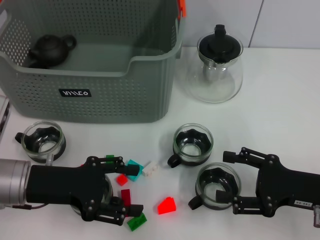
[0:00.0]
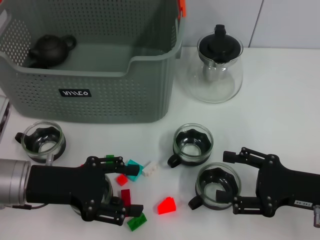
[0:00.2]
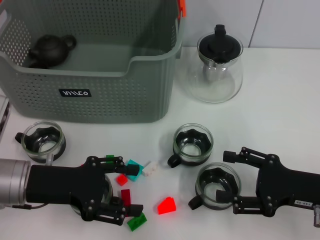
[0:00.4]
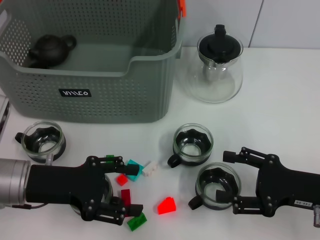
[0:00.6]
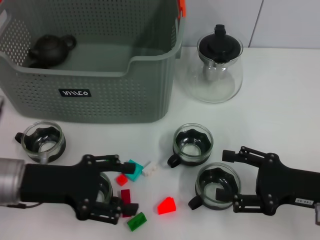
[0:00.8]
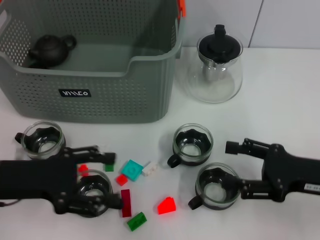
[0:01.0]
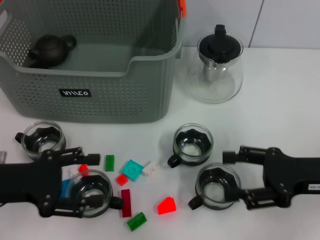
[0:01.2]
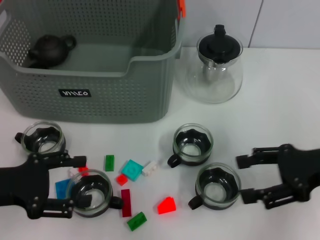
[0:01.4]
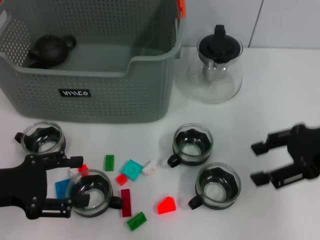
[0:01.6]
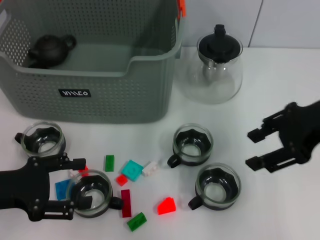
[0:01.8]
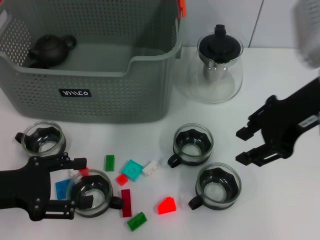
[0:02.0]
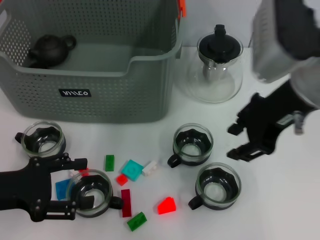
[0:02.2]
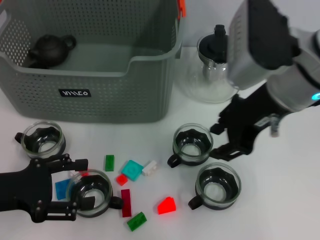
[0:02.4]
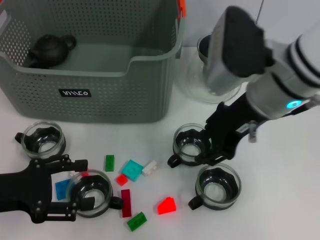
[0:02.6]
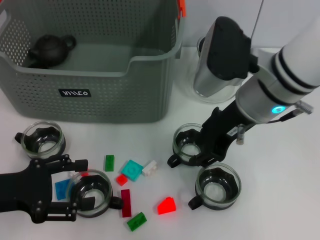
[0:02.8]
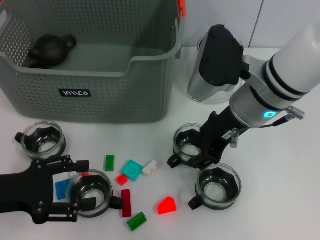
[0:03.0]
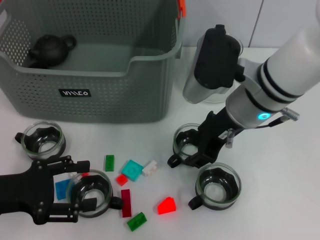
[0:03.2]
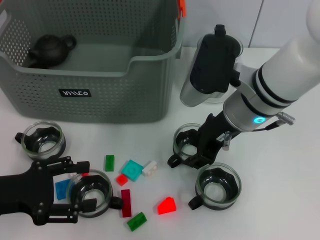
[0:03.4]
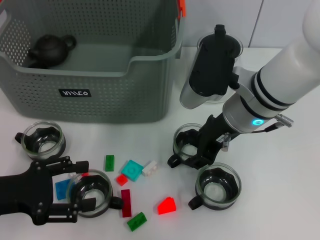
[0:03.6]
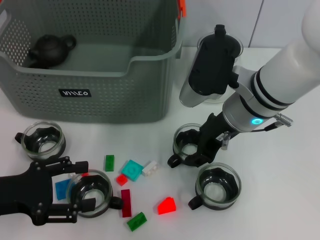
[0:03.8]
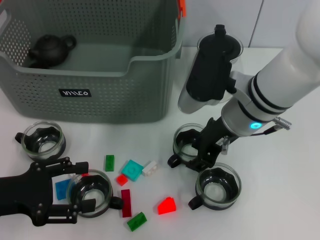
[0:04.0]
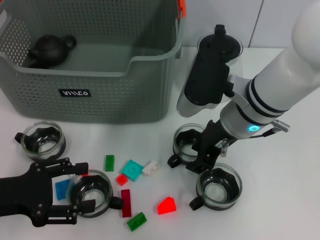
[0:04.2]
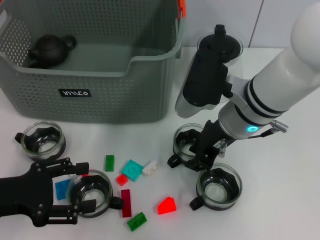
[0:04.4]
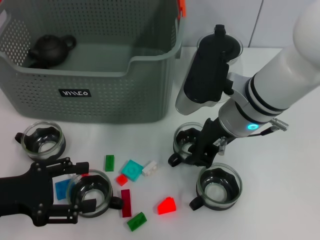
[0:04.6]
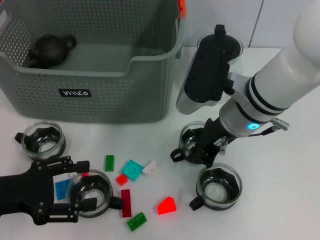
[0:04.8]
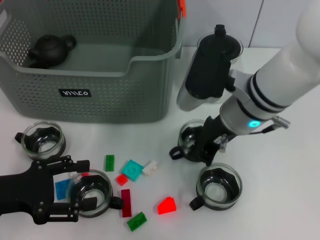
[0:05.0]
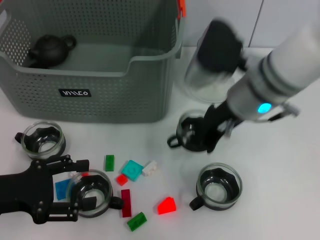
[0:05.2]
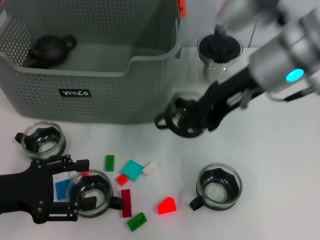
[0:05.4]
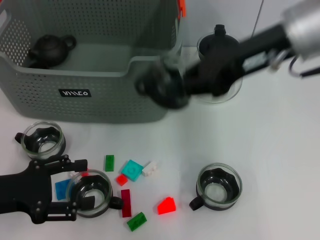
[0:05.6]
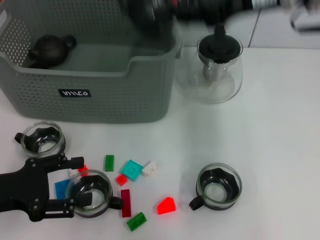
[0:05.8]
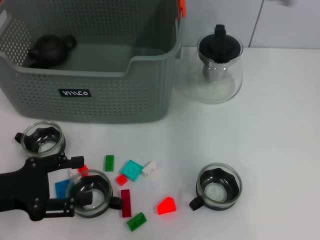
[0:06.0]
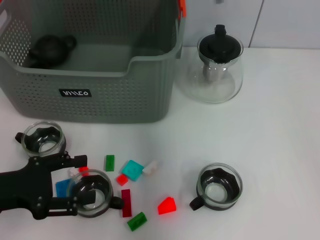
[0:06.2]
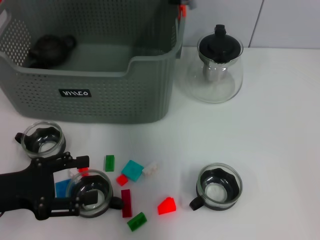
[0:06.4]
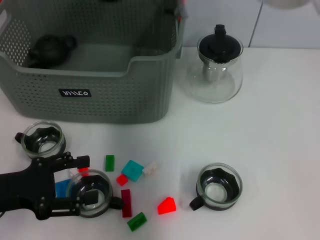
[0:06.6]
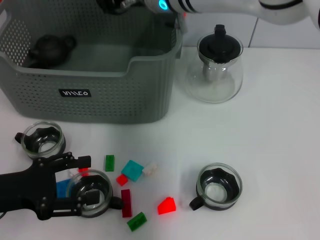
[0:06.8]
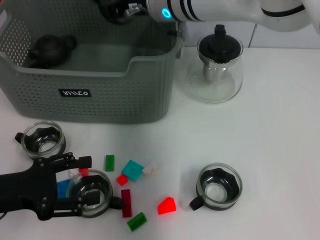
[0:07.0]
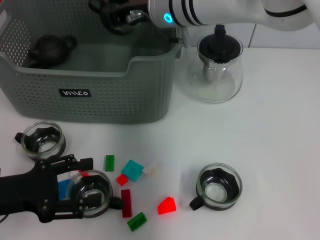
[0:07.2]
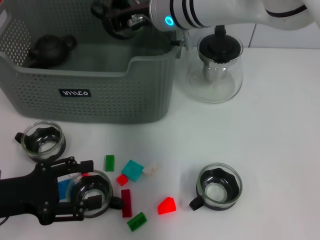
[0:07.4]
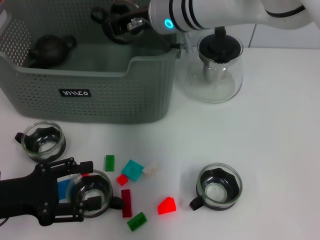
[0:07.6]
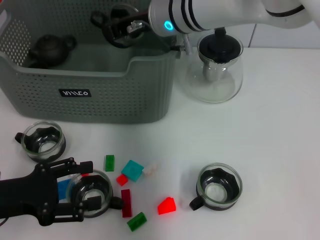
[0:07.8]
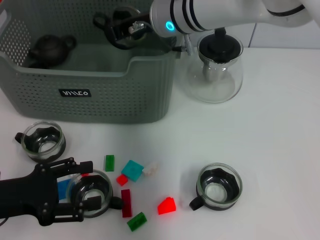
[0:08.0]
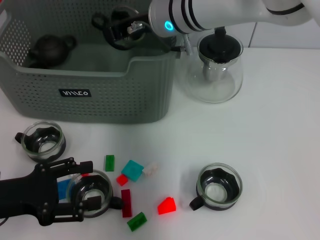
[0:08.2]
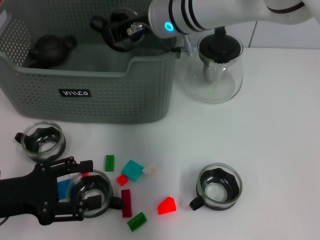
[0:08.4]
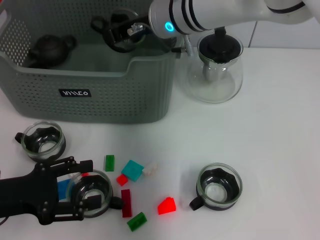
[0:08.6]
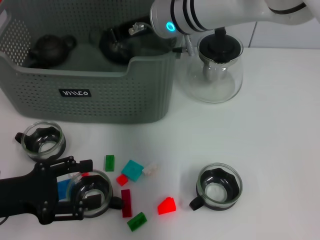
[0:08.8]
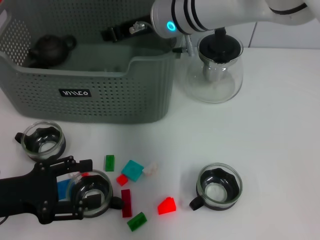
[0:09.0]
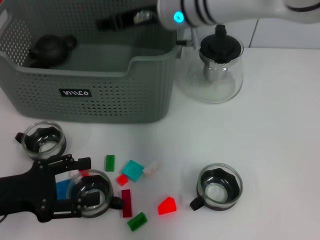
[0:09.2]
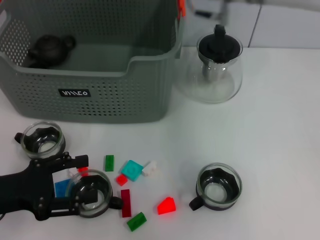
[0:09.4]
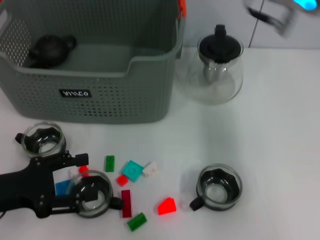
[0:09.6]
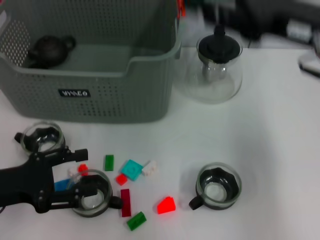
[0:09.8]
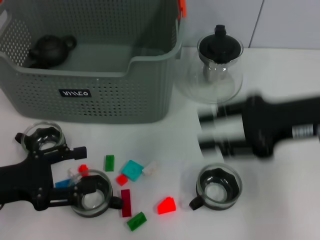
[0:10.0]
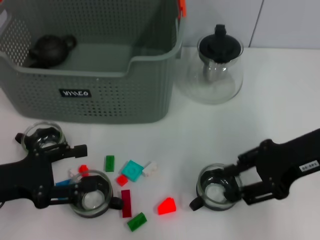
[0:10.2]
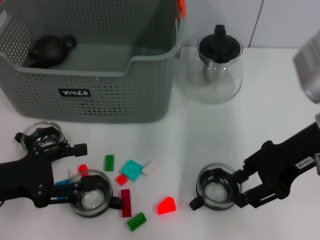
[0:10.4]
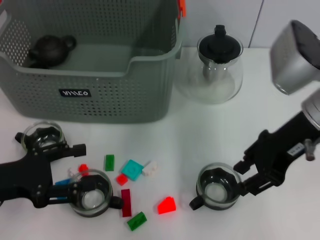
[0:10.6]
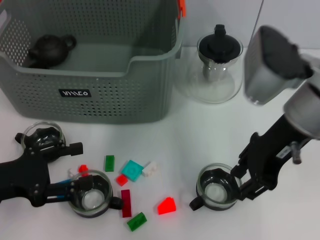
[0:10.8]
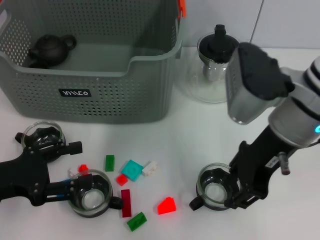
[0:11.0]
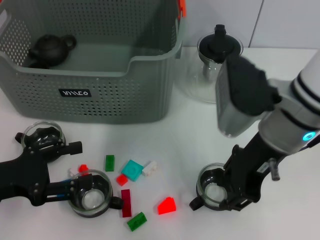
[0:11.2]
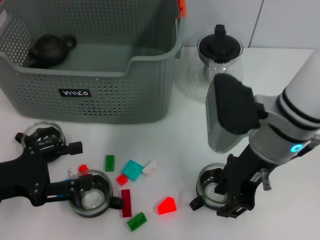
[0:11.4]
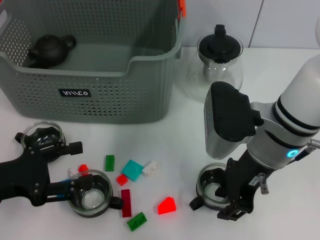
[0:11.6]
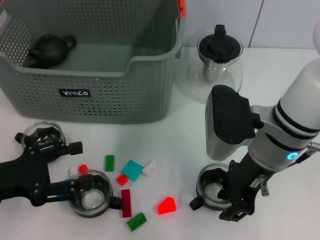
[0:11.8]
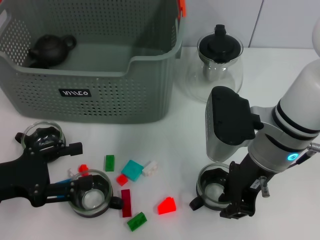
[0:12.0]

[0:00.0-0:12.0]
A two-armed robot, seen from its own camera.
Task of the whole recording: pick up the teacup on the table and place it into the storage bin, pick up the block on the table and place it into the storage bin.
Step, 0.0 to 4.8 s: Grasp the cup with right gripper.
Step, 5.0 to 8.8 s: Place the cup in the storage box with right gripper.
Step, 9.2 to 9.6 s: Grasp the cup with right gripper.
0.0 to 1.6 s: The right gripper moves upward and forward, approximately 15 cm, while the left gripper moves to the left, roughly 5 cm.
1.6 to 3.0 s: The right gripper shifts roughly 15 cm to the left, and closes.
3.0 to 4.4 s: There are only small adjustments of the grippers.
4.4 to 6.0 s: The right gripper travels upward by roughly 15 cm, and closes up.
6.0 to 7.6 s: The right gripper goes about 15 cm downward and to the left.
7.6 to 9.0 s: Both grippers stay about where they are.
9.0 to 10.4 s: The right gripper is displaced to the right and backward by roughly 25 cm, and opens up.
10.4 to 12.0 s: The right gripper moves to the left, approximately 10 cm.

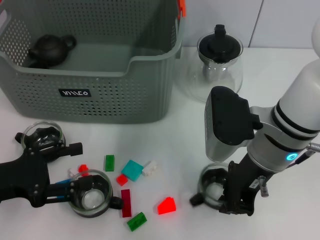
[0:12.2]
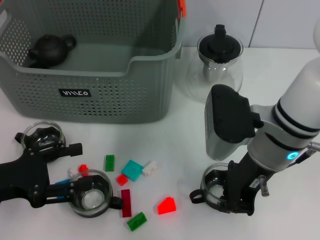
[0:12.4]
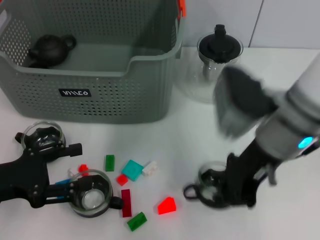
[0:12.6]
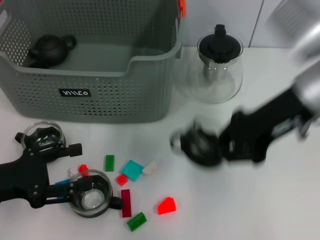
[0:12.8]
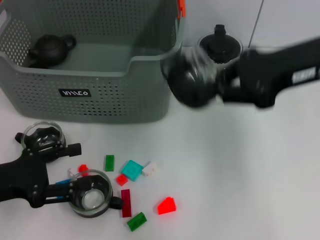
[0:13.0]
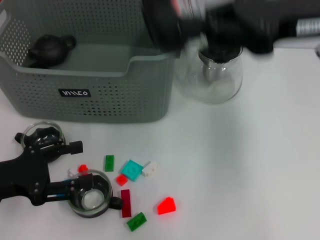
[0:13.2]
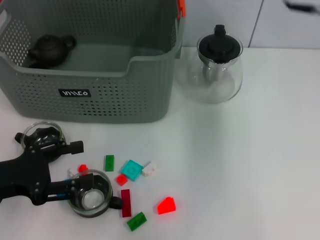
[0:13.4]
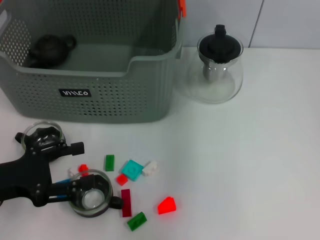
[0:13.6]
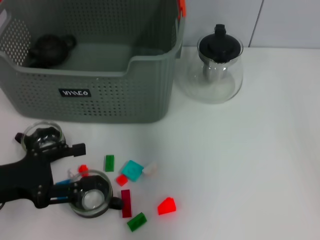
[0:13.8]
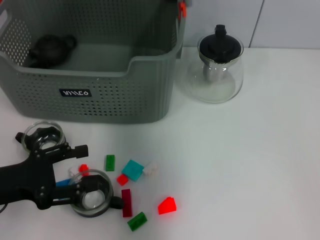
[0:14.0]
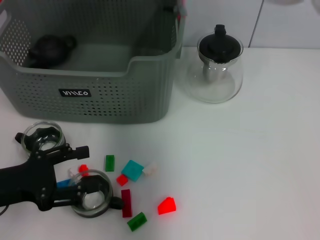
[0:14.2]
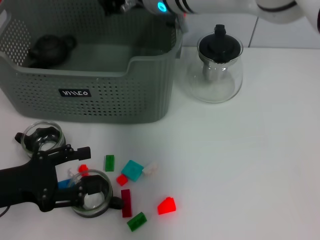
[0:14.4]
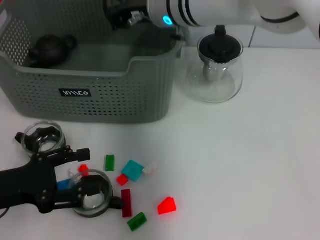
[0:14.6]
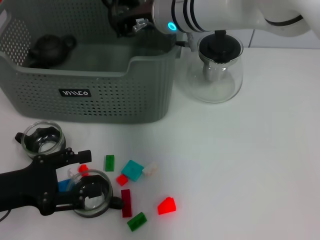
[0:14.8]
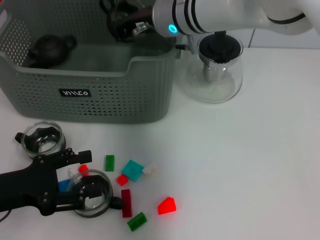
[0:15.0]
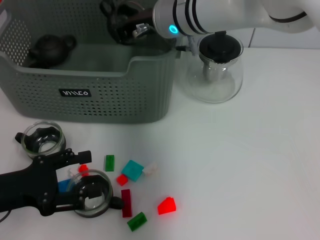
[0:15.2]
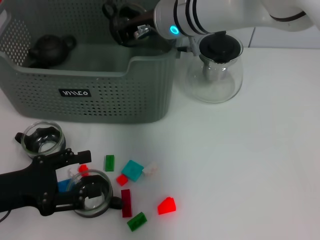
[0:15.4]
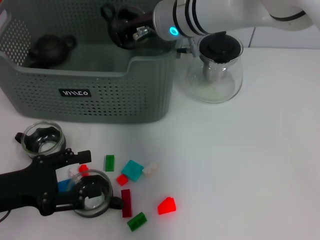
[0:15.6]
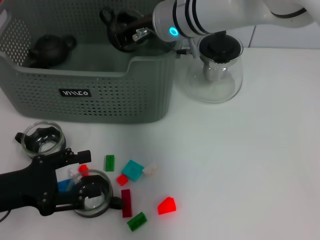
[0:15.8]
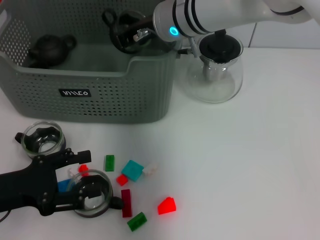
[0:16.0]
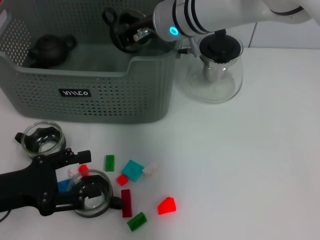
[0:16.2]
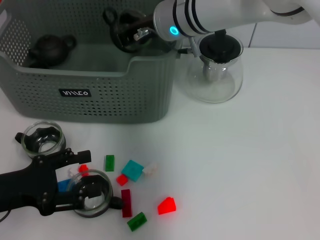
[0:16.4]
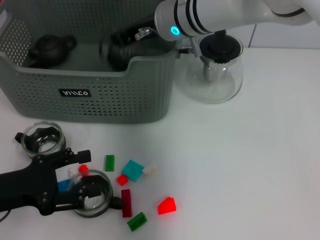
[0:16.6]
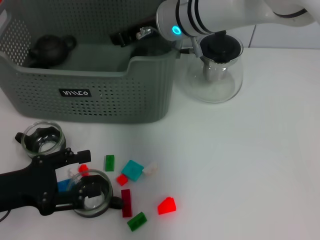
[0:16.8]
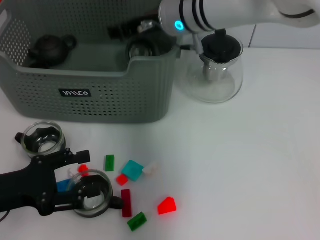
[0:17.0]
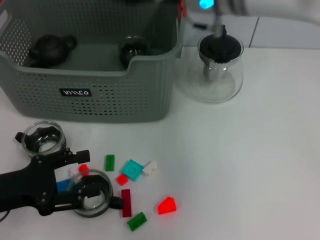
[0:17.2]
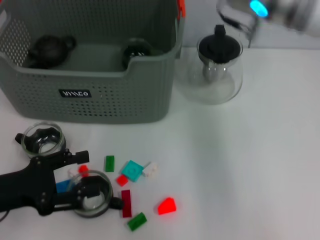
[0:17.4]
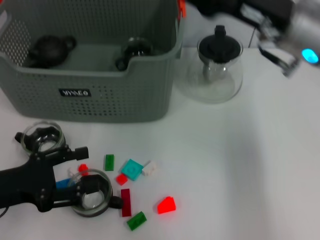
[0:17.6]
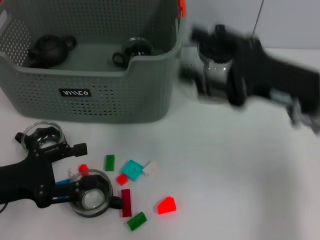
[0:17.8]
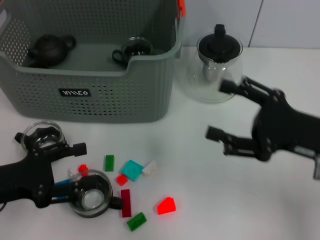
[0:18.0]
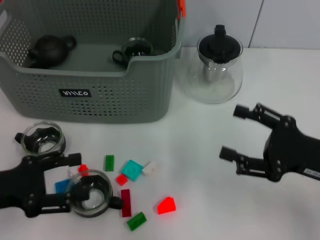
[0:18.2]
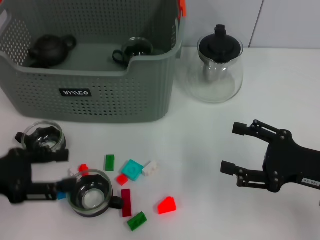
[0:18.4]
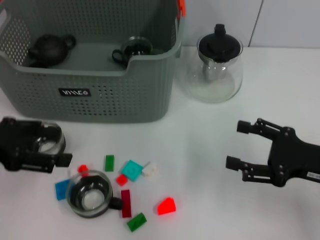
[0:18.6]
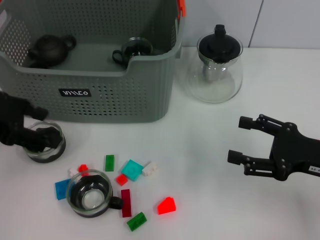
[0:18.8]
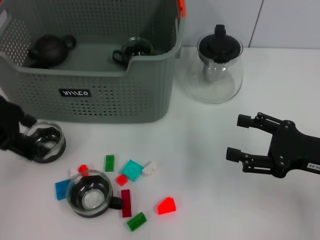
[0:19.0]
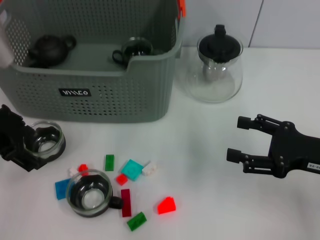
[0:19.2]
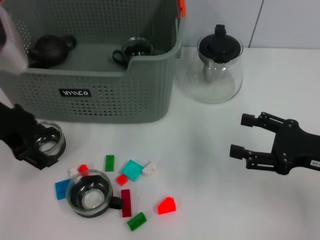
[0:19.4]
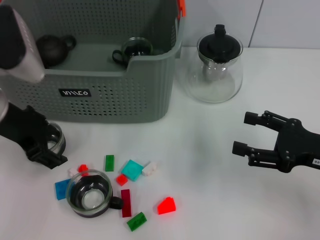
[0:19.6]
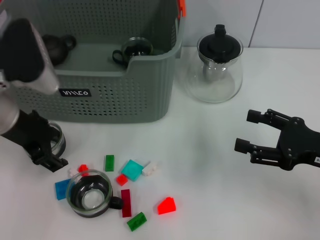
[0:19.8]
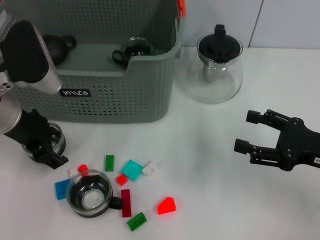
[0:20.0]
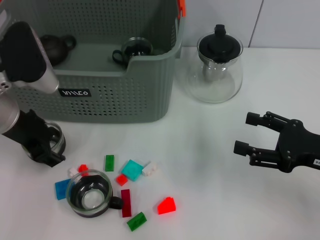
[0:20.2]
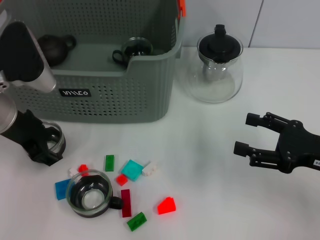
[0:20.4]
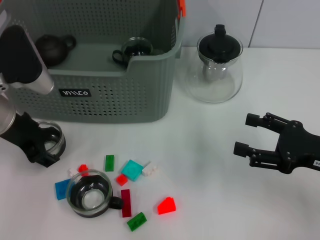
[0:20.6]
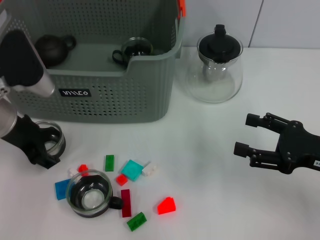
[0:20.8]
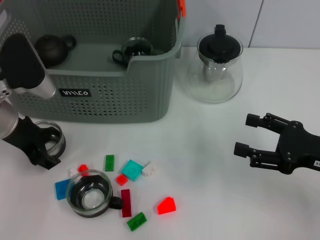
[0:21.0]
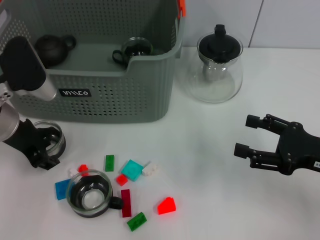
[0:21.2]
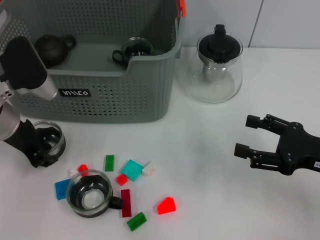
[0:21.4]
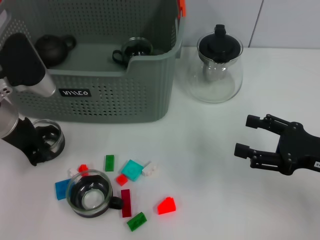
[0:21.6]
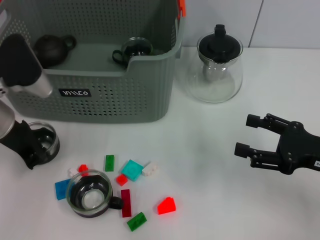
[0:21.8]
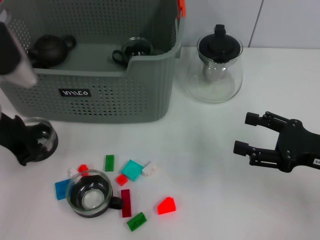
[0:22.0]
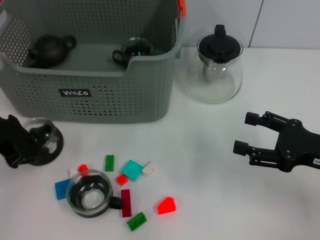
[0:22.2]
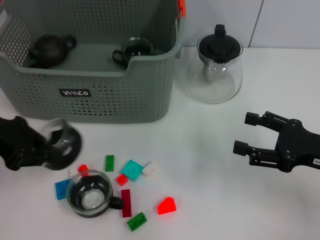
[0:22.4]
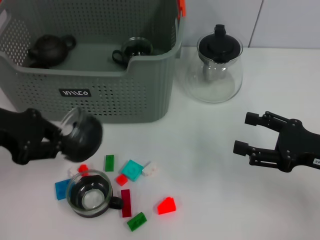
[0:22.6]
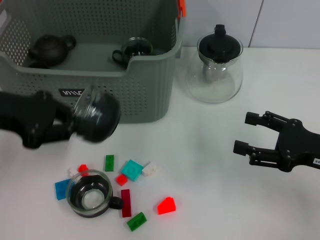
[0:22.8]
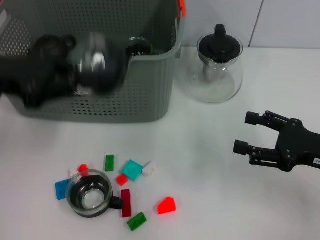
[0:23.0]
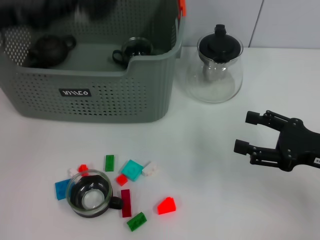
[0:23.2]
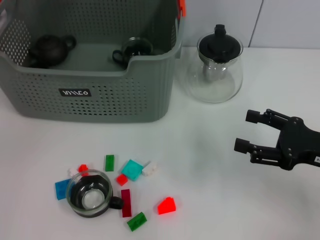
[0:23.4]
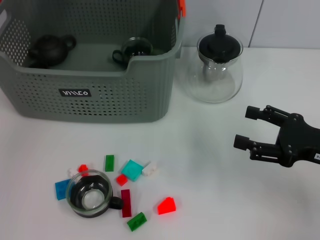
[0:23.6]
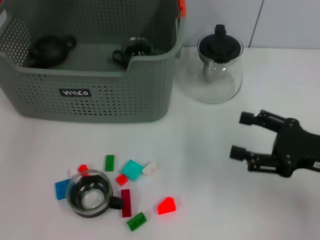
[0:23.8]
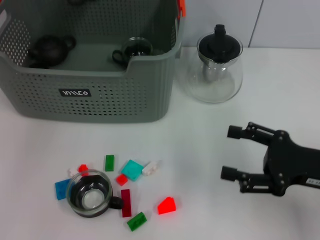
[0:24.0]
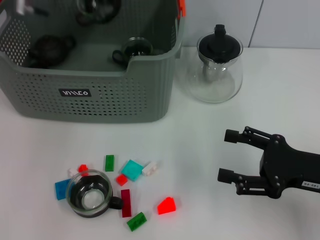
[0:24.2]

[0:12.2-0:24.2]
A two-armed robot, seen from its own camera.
Task of the whole recording: pick up the teacup on the table and place it into the storage bin, pick up the block on the table and place it into the storage bin.
12.2 to 13.8 s: The right gripper goes roughly 20 cm upward, forward and to the left.
13.8 to 15.2 s: The right gripper goes approximately 10 cm downward.
15.2 to 16.6 s: Neither gripper changes place.
16.6 to 18.2 s: The right gripper is displaced to the right, backward and downward by about 35 cm, and opens its fingers.
18.2 to 19.8 s: The left gripper travels forward, upward and to the right by some 15 cm.
19.8 to 21.2 s: There are only small adjustments of the grippers.
21.2 to 22.6 s: The left gripper shifts roughly 10 cm to the left and upward, and closes up.
22.6 to 24.2 s: The left gripper goes about 20 cm forward and to the right.
